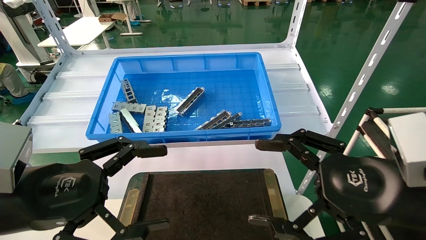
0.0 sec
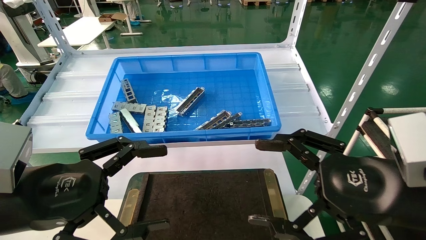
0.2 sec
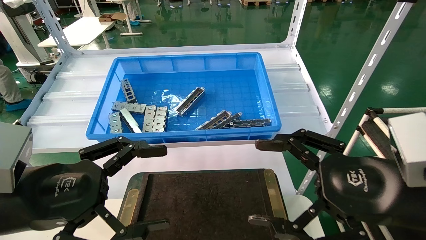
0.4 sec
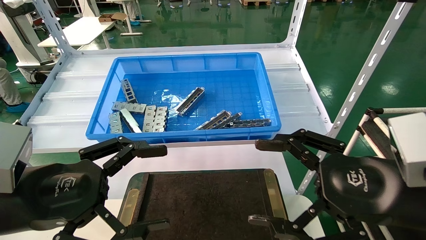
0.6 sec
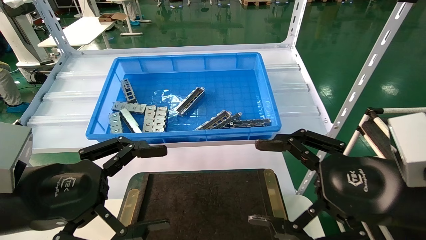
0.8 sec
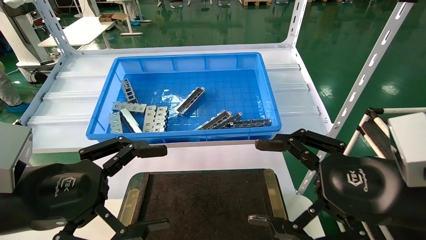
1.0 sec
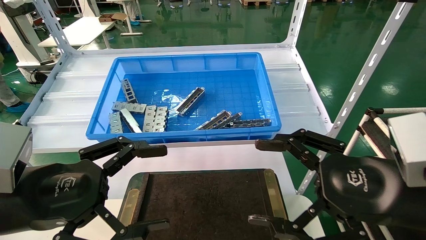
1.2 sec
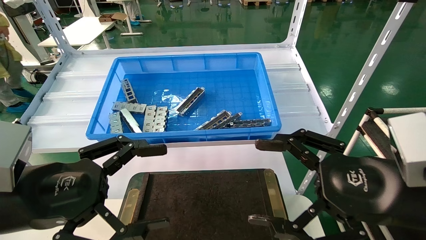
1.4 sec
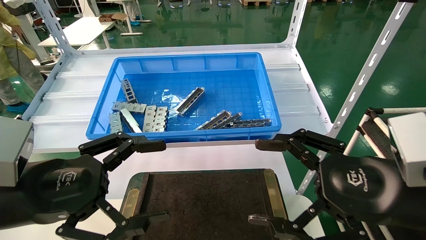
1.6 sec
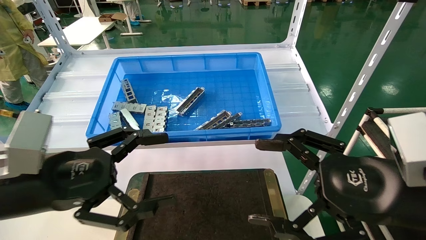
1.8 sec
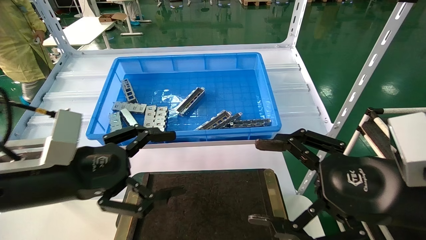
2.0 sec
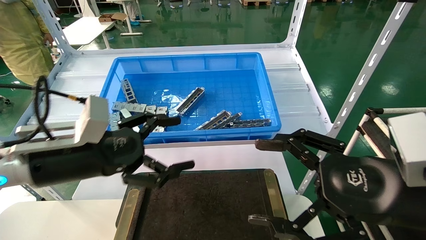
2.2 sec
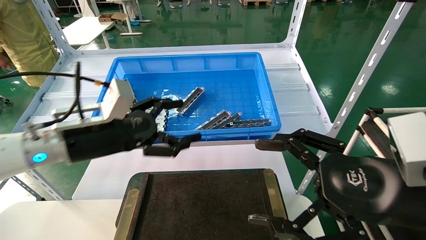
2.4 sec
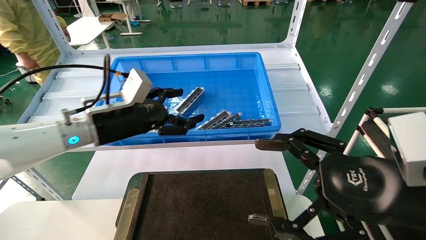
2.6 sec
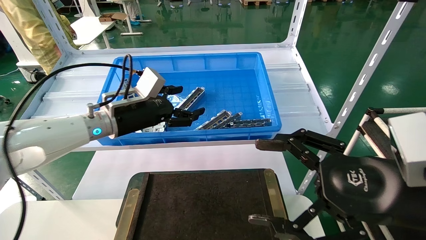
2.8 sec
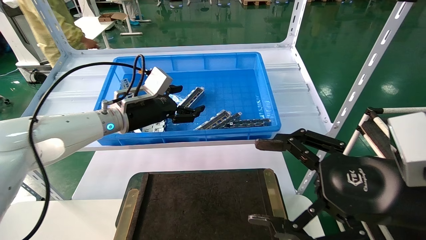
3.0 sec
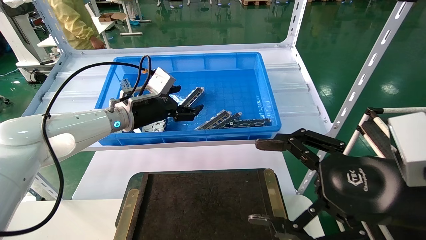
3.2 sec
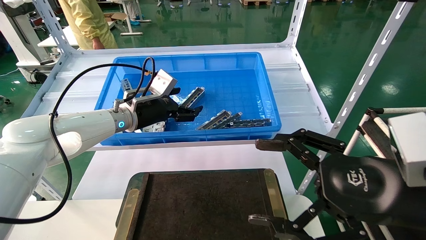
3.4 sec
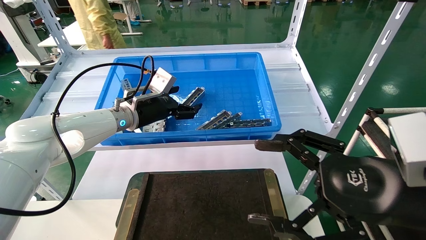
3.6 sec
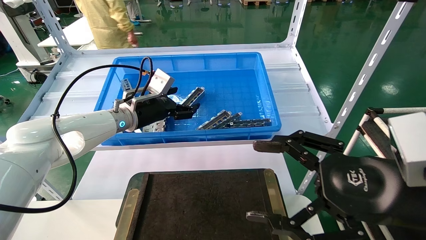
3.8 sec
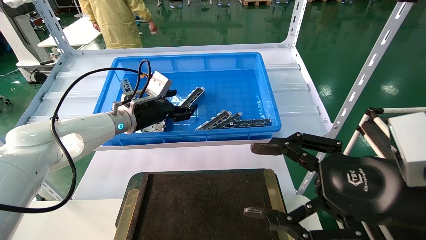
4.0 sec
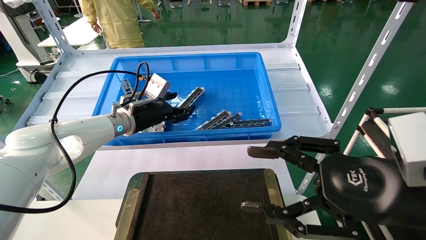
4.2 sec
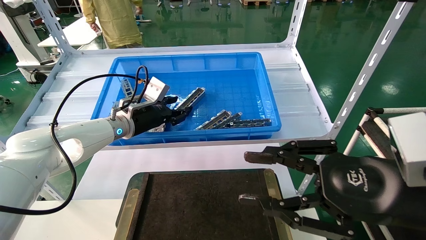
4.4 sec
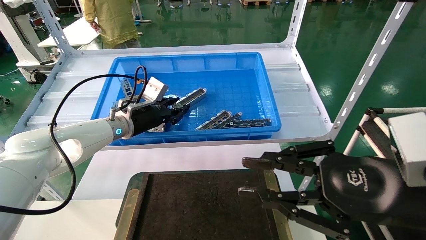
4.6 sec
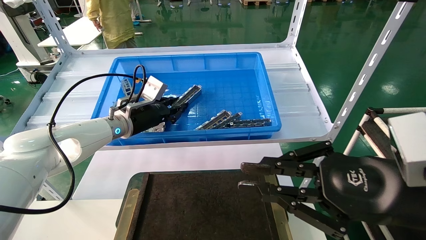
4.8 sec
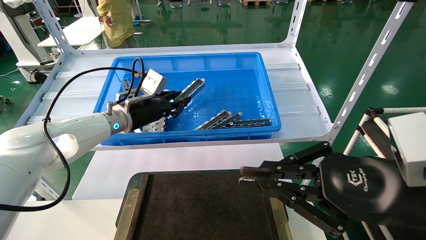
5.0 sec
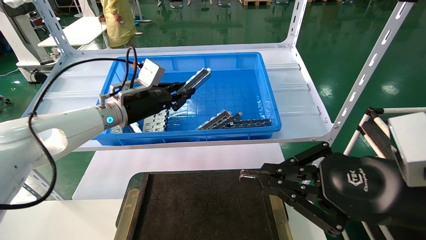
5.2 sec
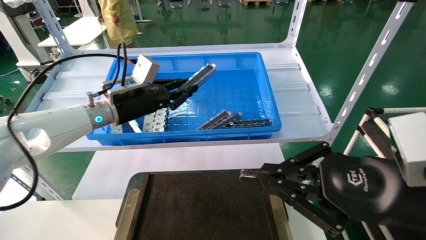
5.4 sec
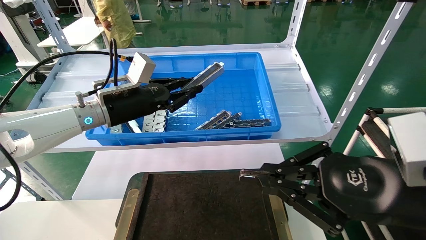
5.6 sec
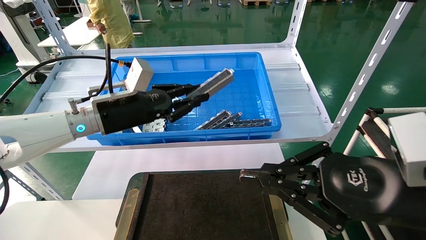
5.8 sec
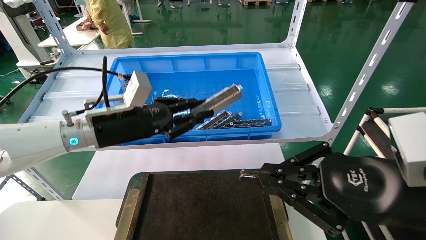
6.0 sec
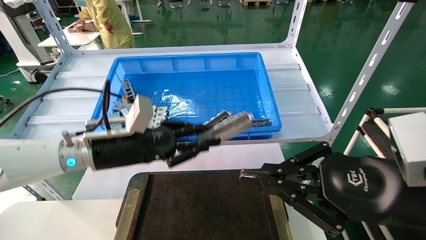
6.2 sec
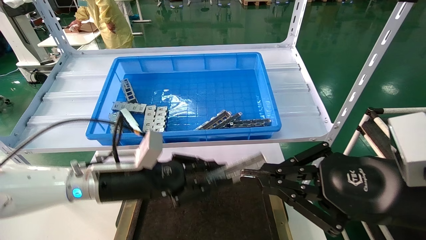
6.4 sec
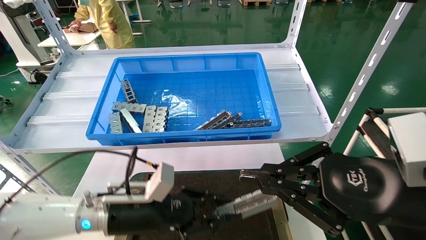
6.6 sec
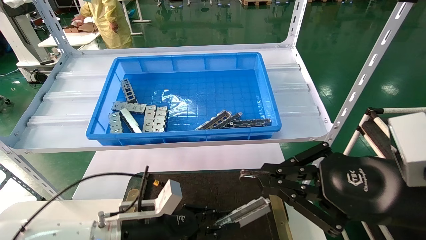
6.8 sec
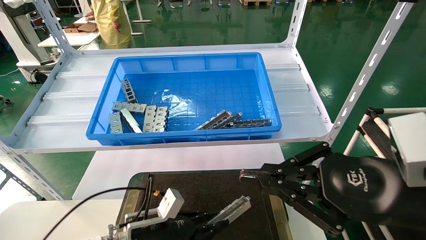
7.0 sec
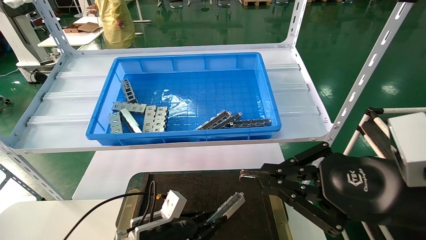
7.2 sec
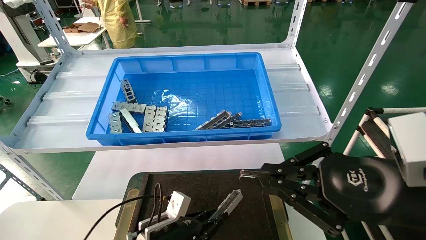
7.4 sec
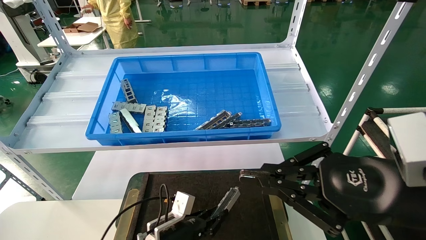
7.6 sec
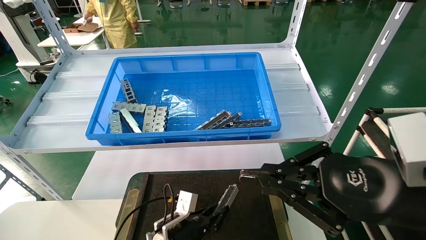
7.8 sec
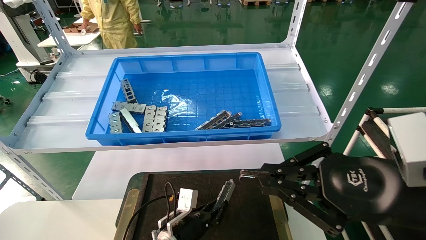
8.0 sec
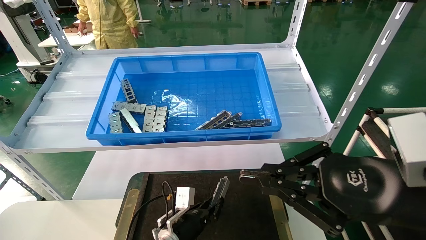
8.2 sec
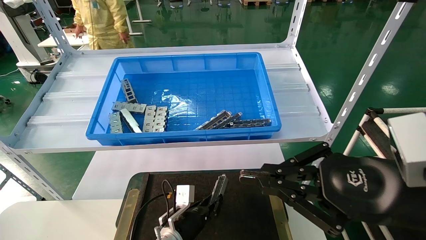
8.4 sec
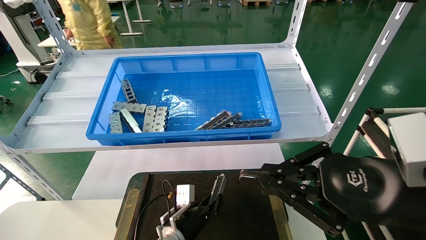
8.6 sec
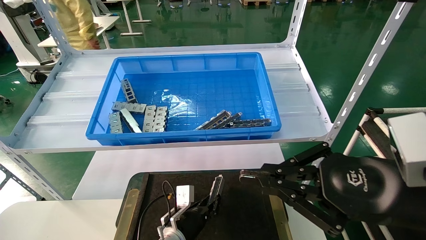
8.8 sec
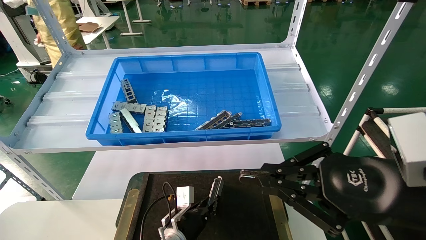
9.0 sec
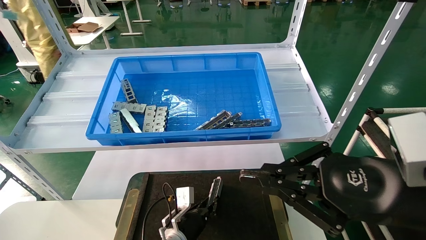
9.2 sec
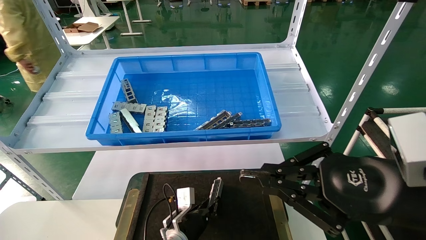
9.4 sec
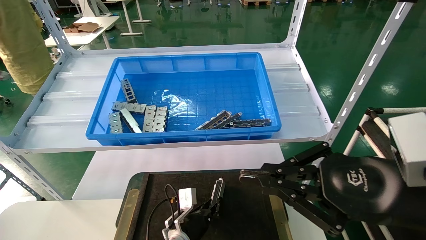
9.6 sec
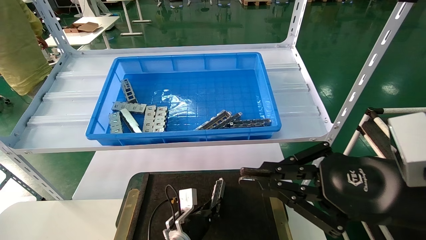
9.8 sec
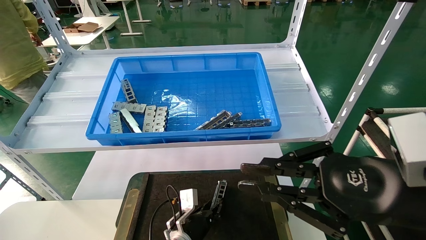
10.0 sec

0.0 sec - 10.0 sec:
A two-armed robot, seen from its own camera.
Task of the whole recording: Grasp the part with one hand and place it on the black container.
Step, 2.0 sec - 5.4 sec: Pick up the front USB bracket from the feeding area.
0.0 sec - 1.4 sec: Both grippers stay about where they are.
1.4 sec - 2.8 sec: The left gripper is displaced forward by roughly 25 cm.
2.8 sec - 4.2 sec: The left gripper travels forward by roughly 5 cm.
4.2 sec - 5.8 sec: The left gripper moves backward, approximately 10 cm, and closes up; the right gripper closes.
5.8 sec - 7.2 sec: The left gripper goes roughly 30 cm downward.
7.2 sec - 8.6 sec: The left gripper goes roughly 10 cm to the right and forward.
8.6 sec - 10.0 sec: There are only small adjustments of the grippers.

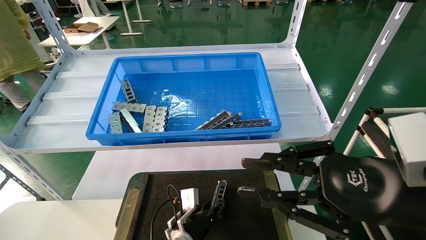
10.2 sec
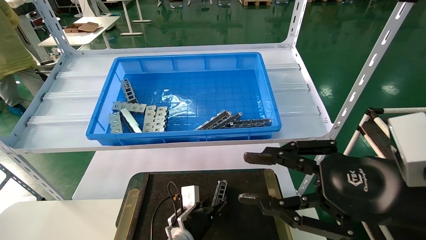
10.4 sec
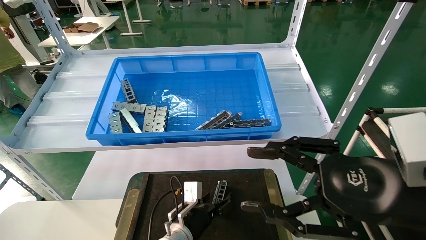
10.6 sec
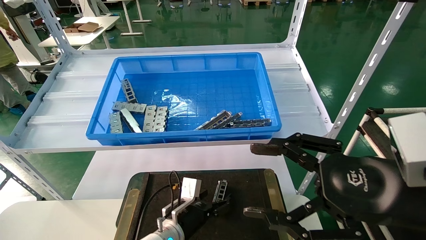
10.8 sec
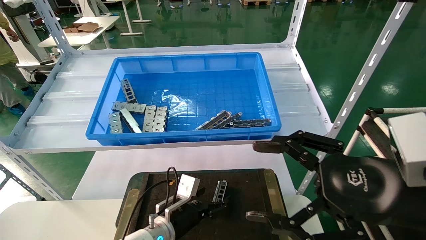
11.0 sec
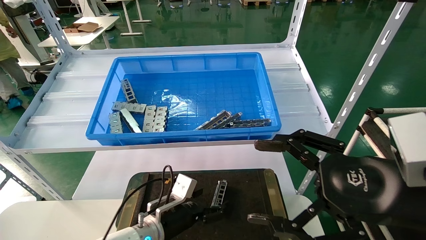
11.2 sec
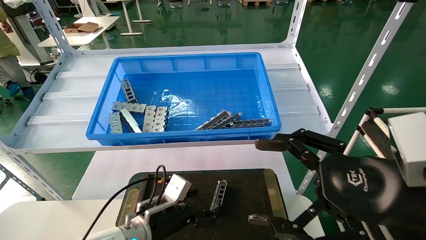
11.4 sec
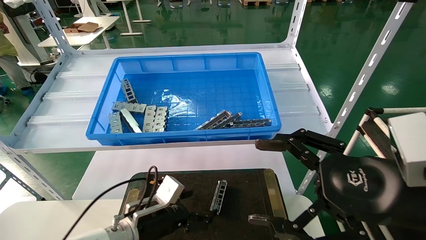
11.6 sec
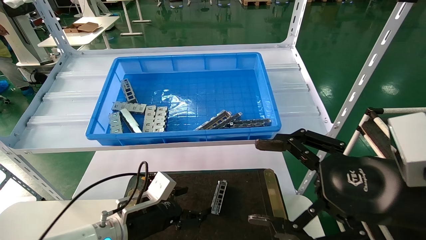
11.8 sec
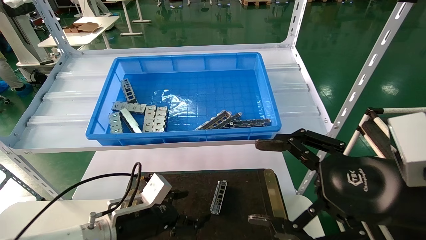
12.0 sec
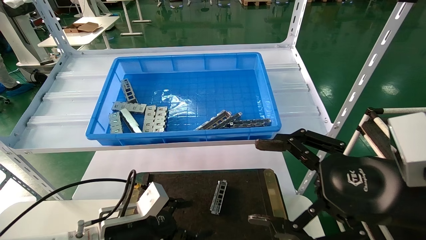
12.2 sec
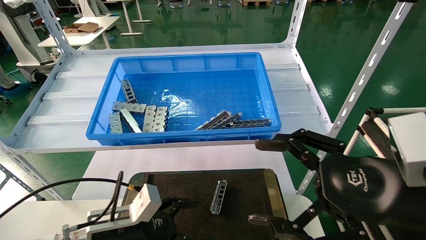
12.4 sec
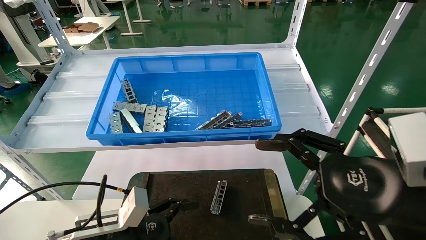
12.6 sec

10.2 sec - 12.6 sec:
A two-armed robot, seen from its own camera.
Task of the whole recording: Grasp the part with one hand and place it on the black container.
10.2 sec - 11.4 sec: The left gripper moves upward and to the left, approximately 10 cm, and opens. The right gripper opens its fingers.
11.4 sec - 12.6 sec: The left gripper travels backward, to the left and upward by roughly 10 cm.
